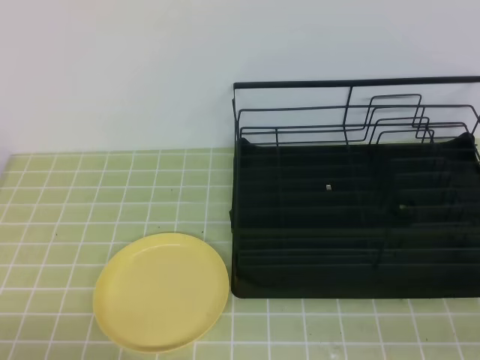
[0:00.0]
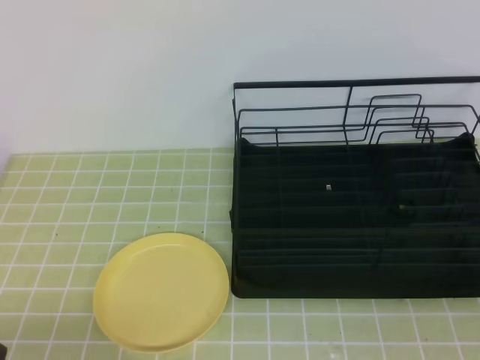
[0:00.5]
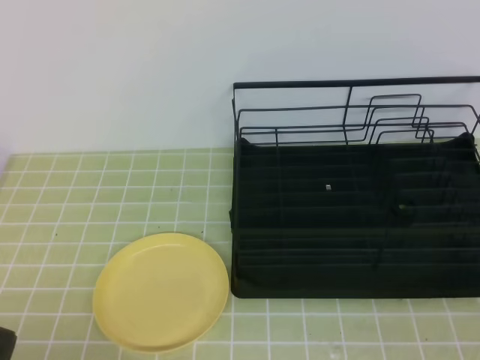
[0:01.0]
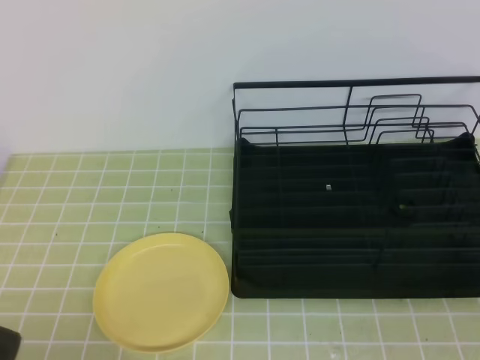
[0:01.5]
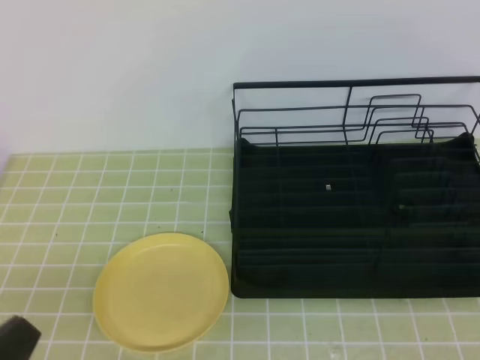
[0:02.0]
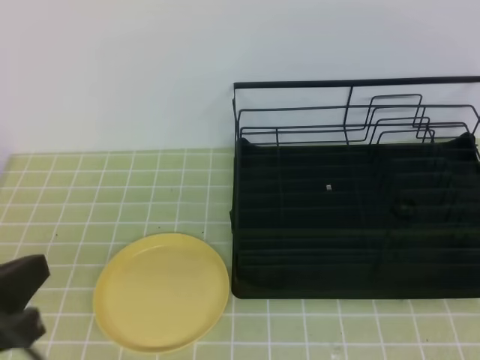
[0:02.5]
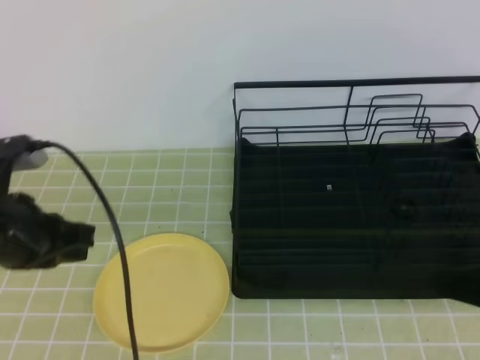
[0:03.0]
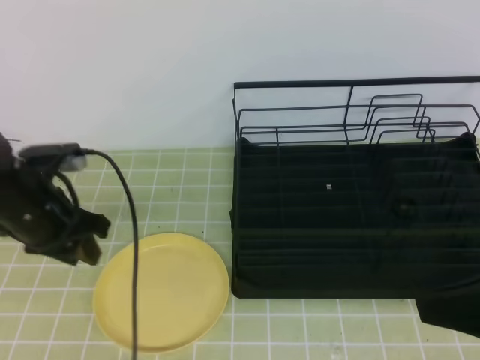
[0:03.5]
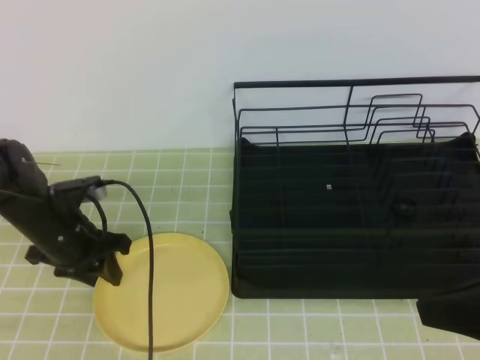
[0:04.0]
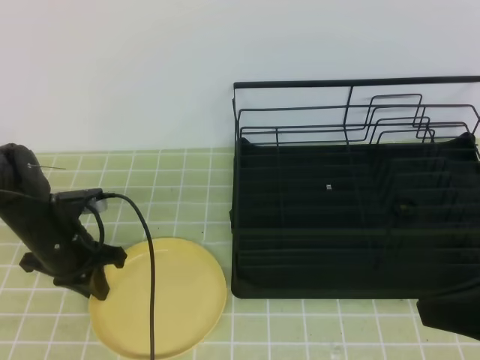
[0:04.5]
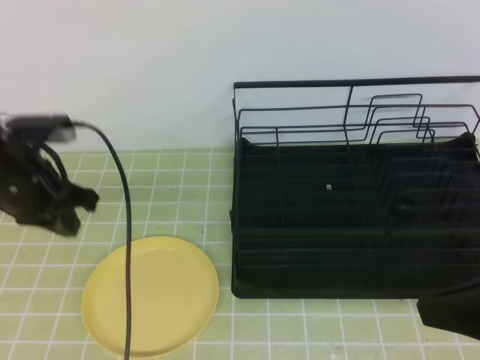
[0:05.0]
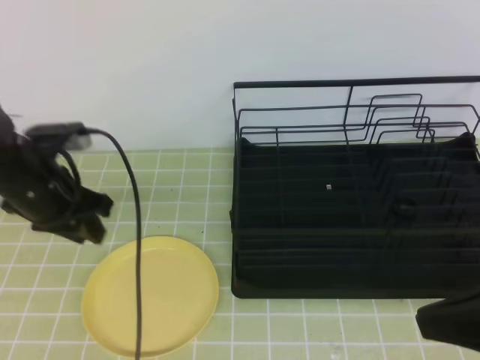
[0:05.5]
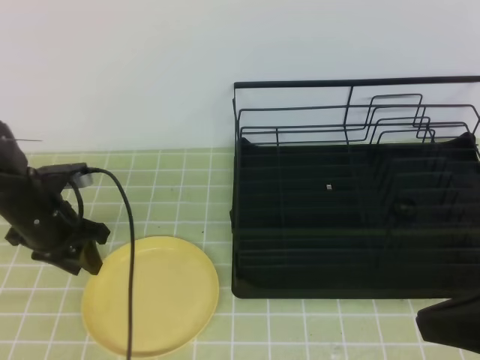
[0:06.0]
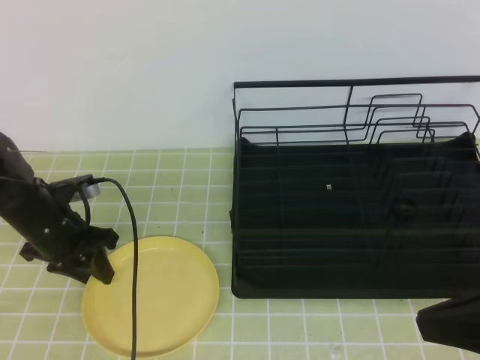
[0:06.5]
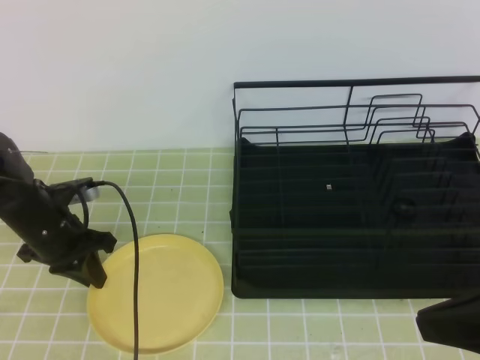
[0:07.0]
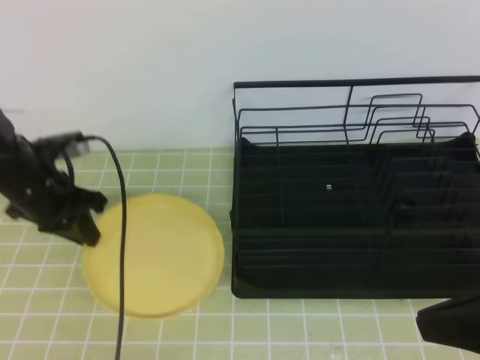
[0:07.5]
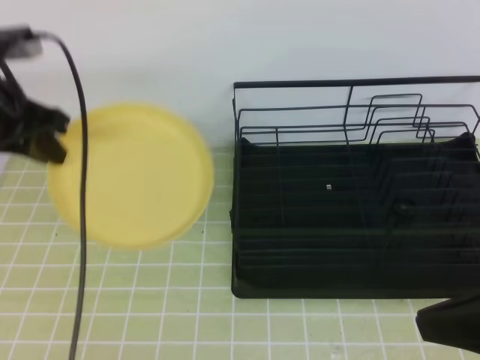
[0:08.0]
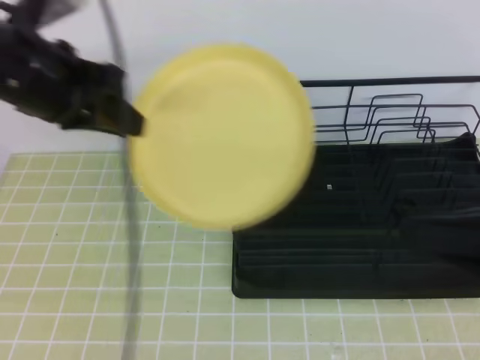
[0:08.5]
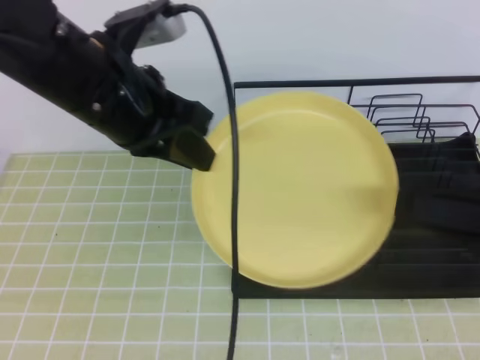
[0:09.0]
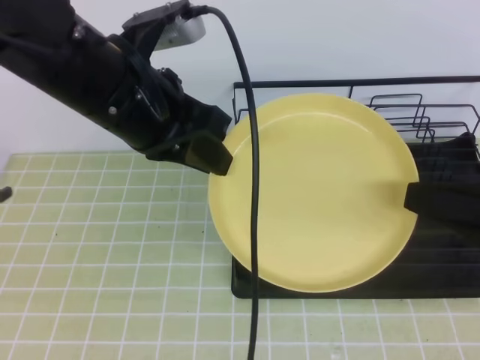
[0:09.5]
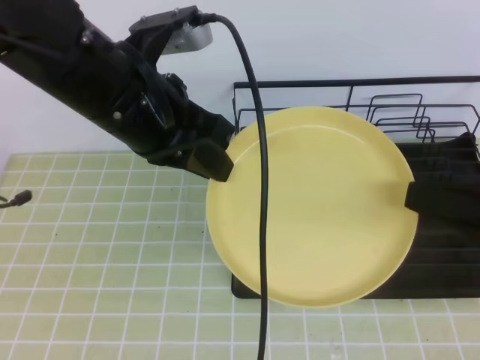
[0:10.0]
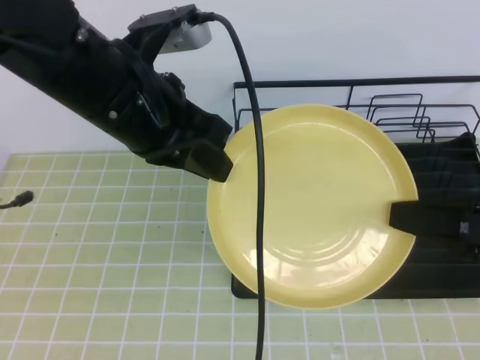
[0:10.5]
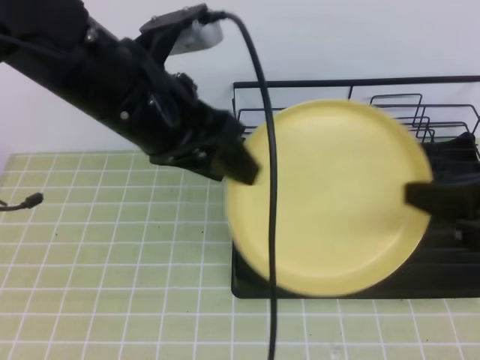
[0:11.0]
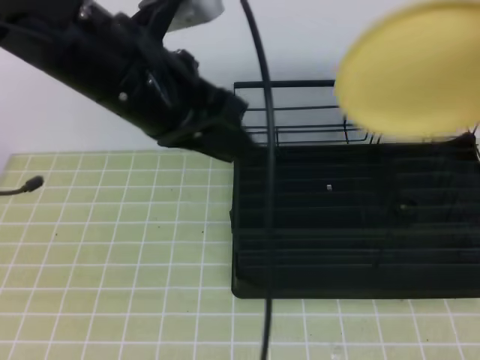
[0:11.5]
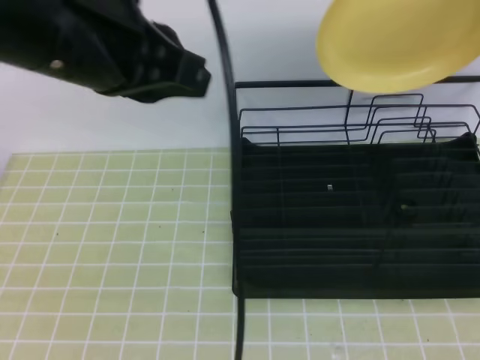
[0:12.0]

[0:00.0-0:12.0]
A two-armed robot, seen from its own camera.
0:00.0 to 0:02.0: The left gripper shifts about 5 cm upward.
0:02.0 to 0:04.0: The right gripper travels forward and to the left by approximately 15 cm, while the left gripper goes approximately 30 cm forward, and opens.
0:04.0 to 0:06.0: The left gripper travels upward and back again, some 10 cm each way, and closes, then opens again.
0:06.0 to 0:08.0: The left gripper is displaced upward by about 15 cm, and closes.
0:08.0 to 0:10.0: The left gripper heads to the right and backward, covering about 15 cm, while the right gripper opens up.
0:10.0 to 0:12.0: The left gripper travels upward by some 5 cm, and opens and closes again; the right gripper travels forward and upward by about 15 cm, and closes up.

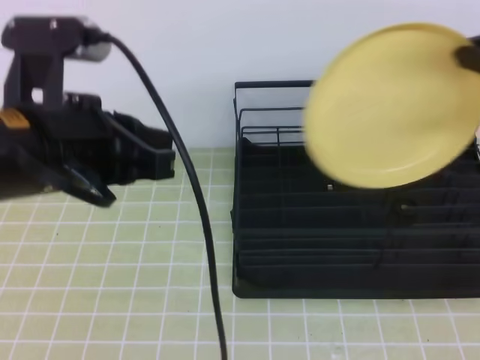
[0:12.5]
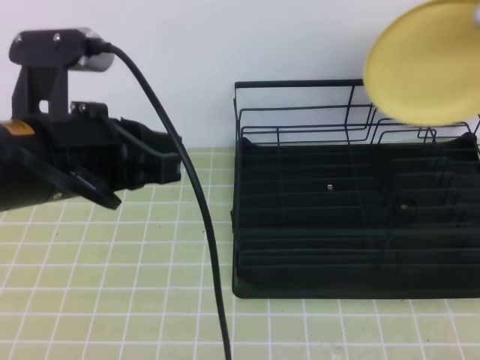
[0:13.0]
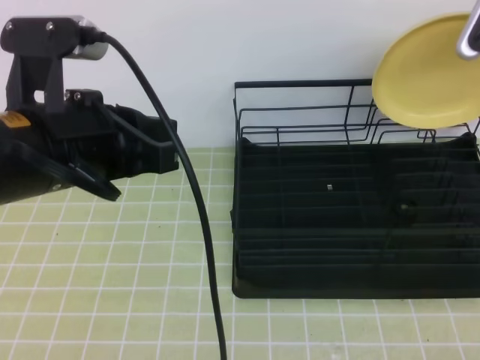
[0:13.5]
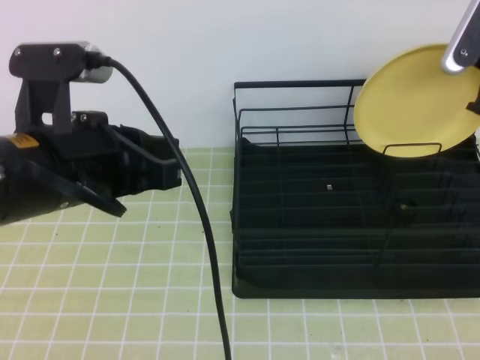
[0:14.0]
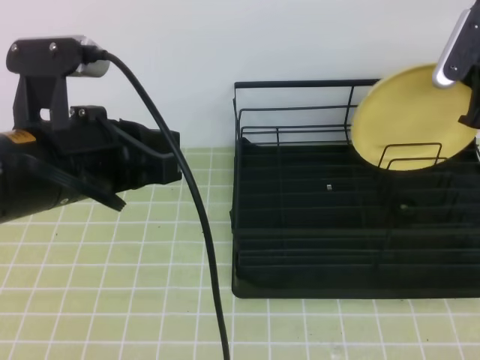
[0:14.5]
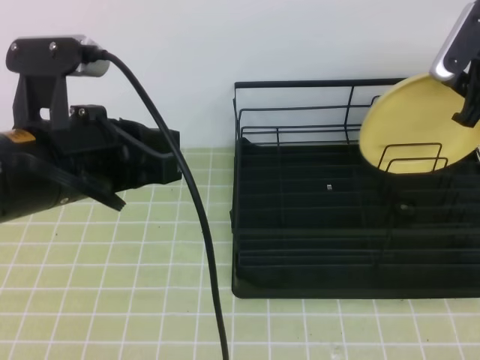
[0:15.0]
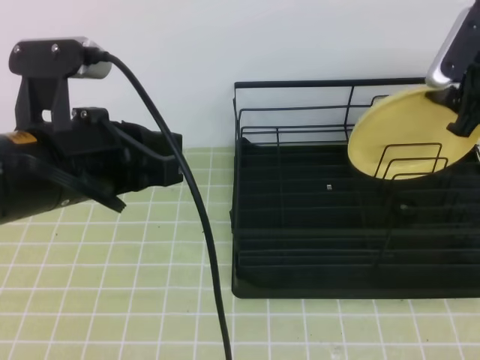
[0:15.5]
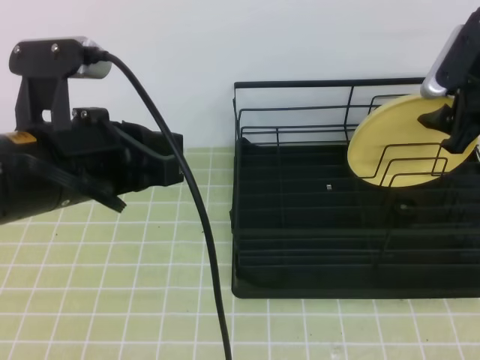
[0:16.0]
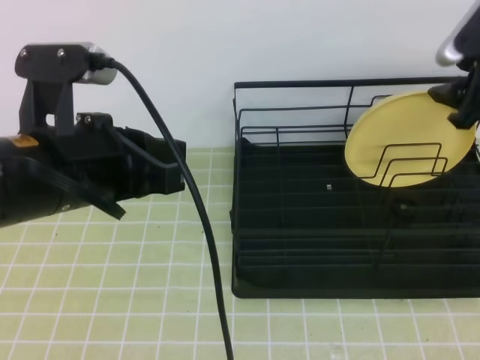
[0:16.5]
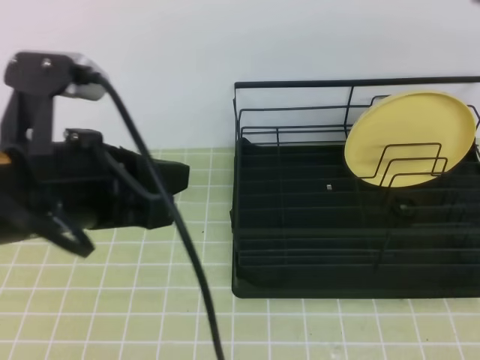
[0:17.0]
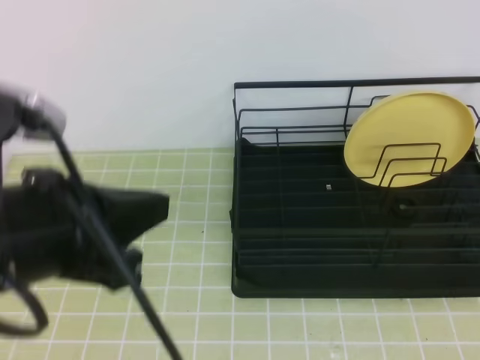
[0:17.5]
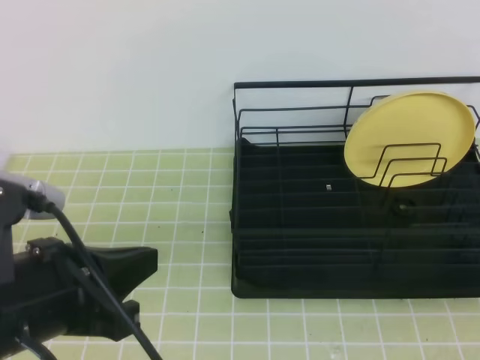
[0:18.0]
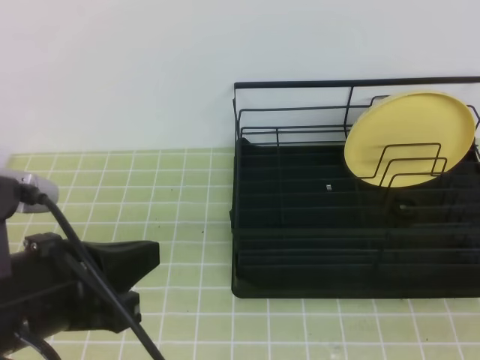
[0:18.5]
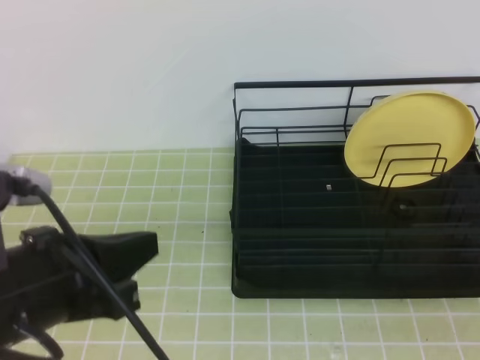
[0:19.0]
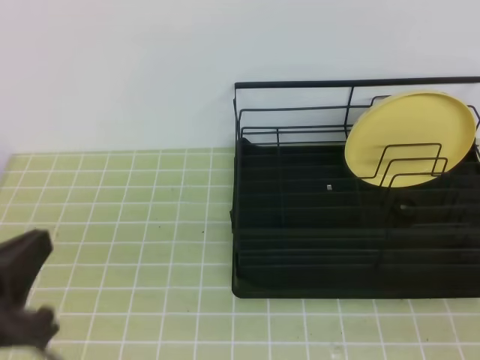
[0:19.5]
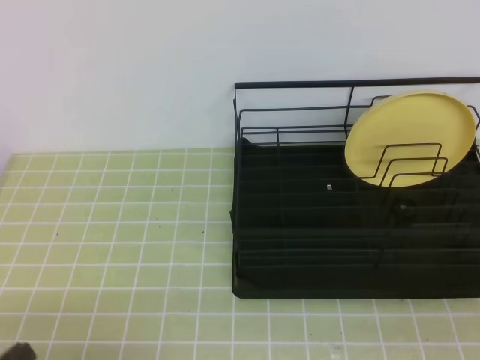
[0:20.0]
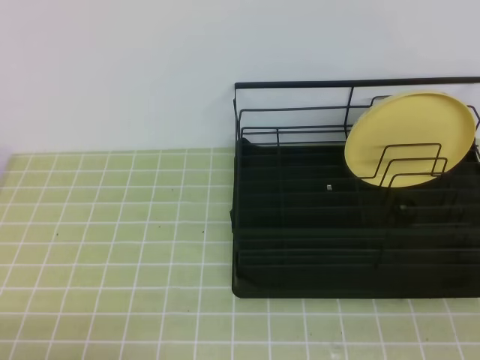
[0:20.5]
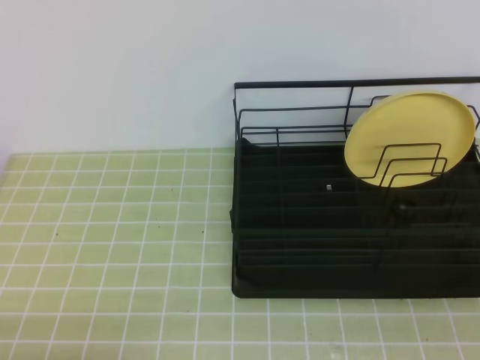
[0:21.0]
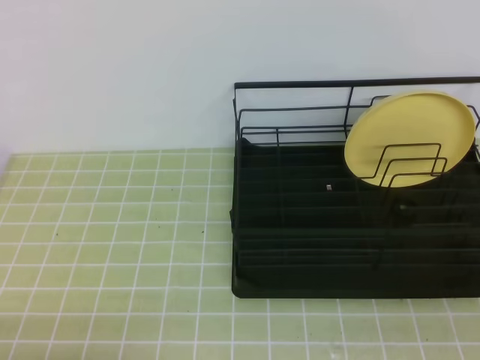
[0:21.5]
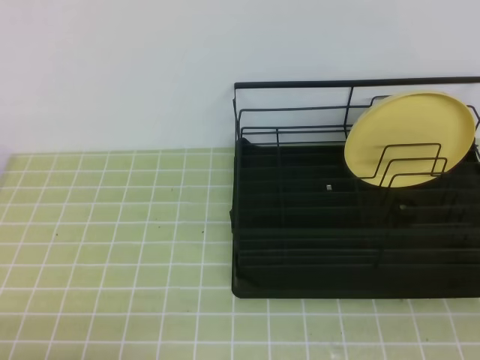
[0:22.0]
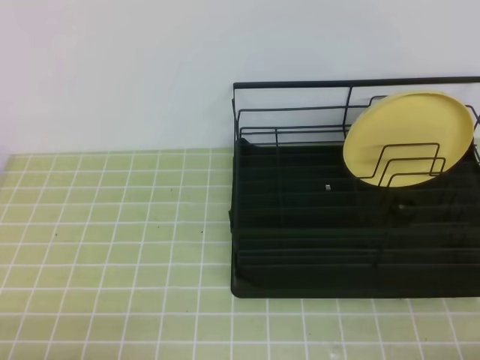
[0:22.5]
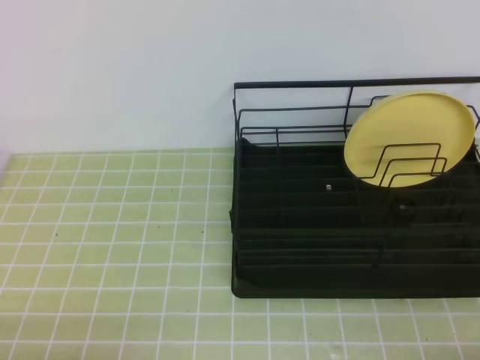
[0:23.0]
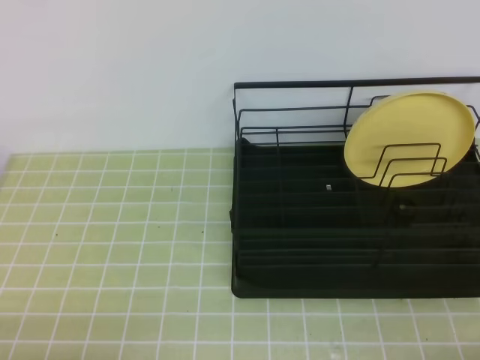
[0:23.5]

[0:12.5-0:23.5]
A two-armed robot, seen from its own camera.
0:12.5 to 0:14.5: The right gripper goes about 15 cm forward and downward.
0:14.5 to 0:16.0: The right gripper opens.
0:16.0 to 0:18.0: The right gripper moves backward, some 35 cm, and closes up, while the left gripper moves backward, some 10 cm.
0:18.0 to 0:20.0: The left gripper goes approximately 15 cm downward, backward and to the left.

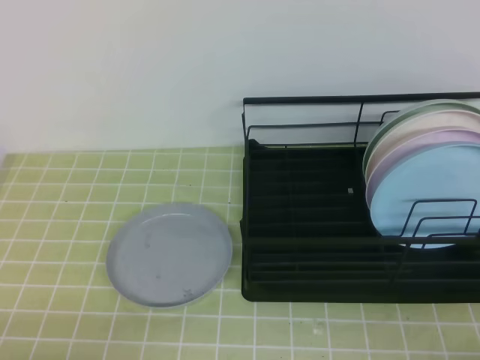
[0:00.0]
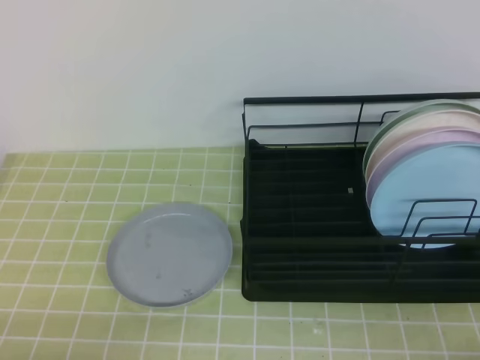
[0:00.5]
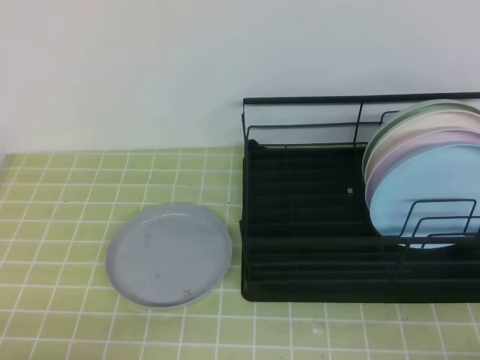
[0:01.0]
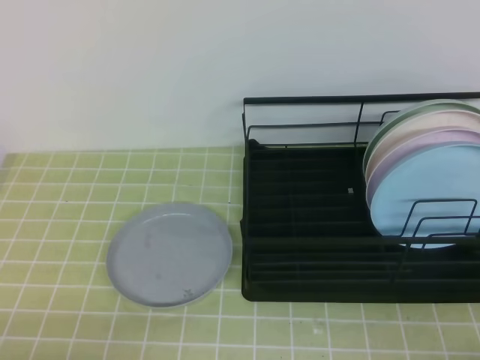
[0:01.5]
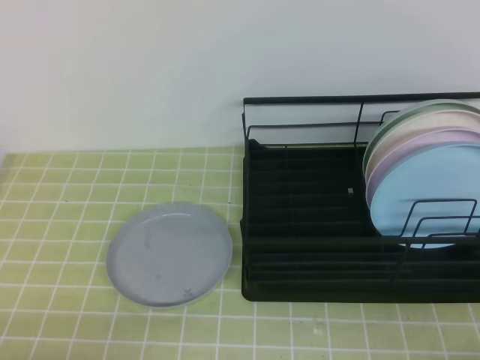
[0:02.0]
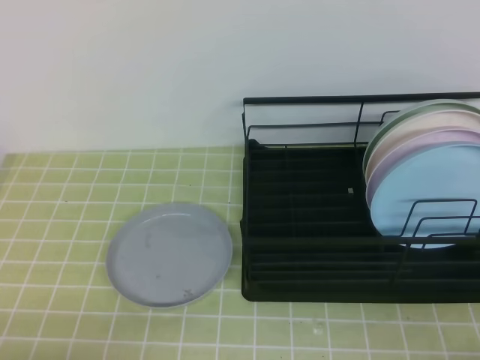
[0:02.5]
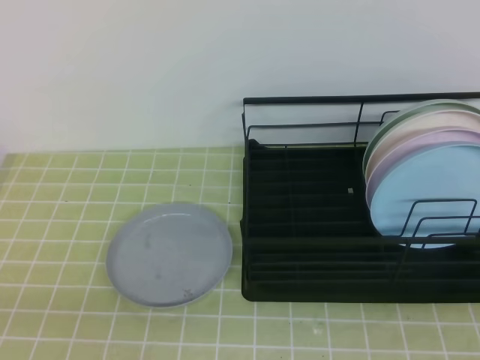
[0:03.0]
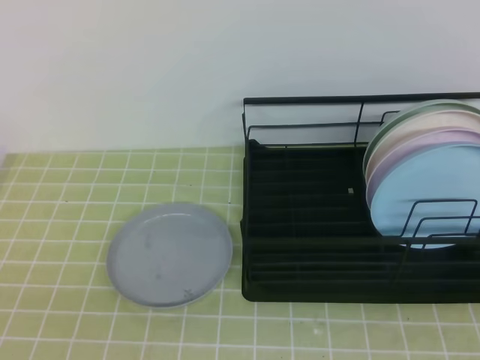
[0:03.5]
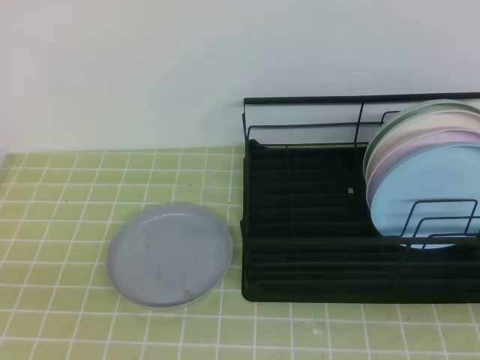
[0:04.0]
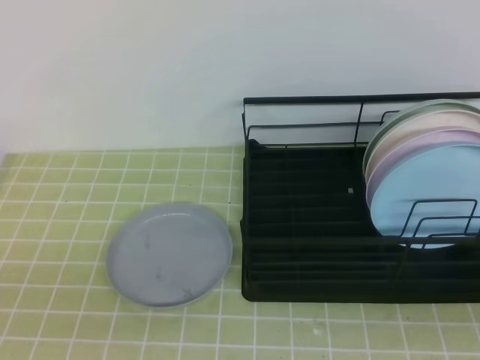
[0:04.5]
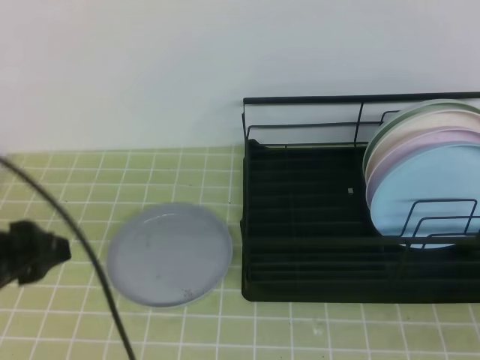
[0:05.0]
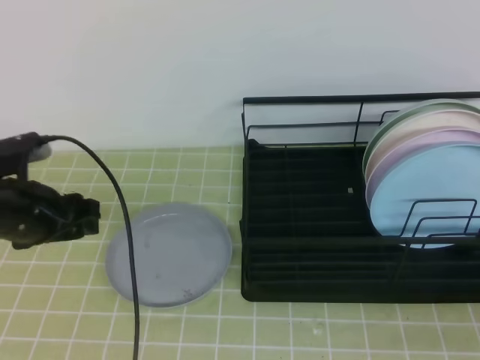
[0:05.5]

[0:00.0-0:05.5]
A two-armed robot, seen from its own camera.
0:00.0 to 0:02.0: Both grippers stay put.
0:03.5 to 0:05.5: The left gripper moves forward, approximately 30 cm, and opens up.
